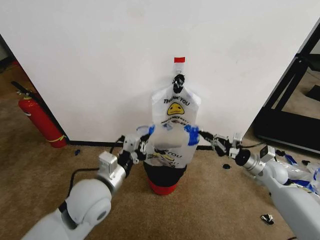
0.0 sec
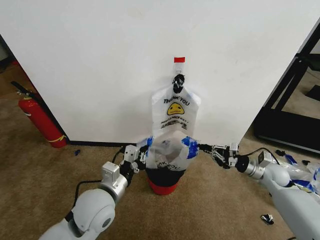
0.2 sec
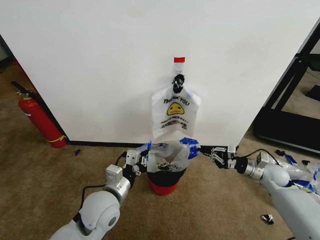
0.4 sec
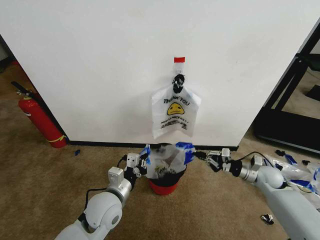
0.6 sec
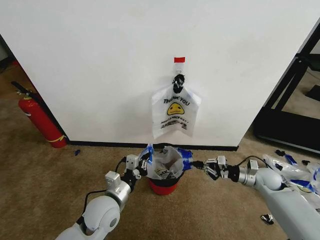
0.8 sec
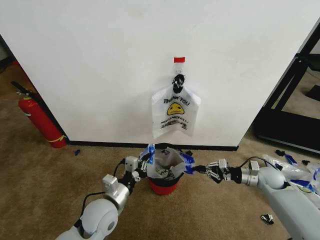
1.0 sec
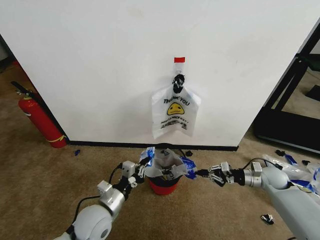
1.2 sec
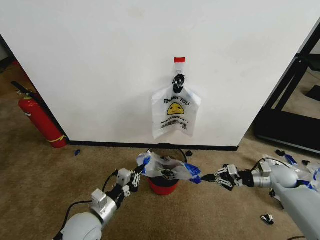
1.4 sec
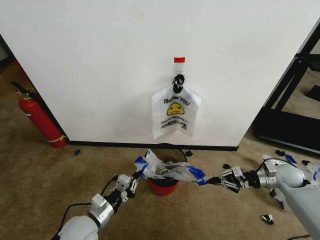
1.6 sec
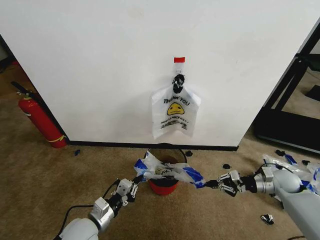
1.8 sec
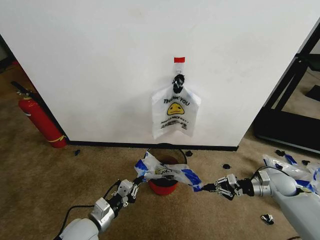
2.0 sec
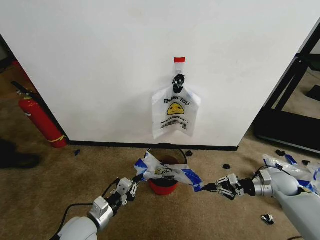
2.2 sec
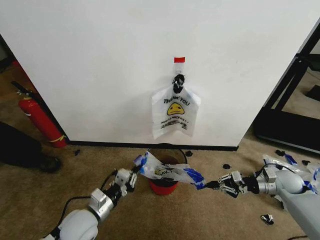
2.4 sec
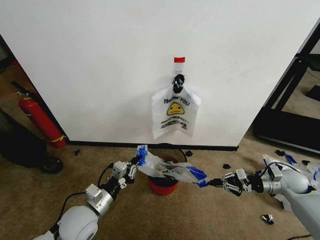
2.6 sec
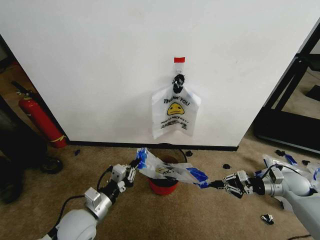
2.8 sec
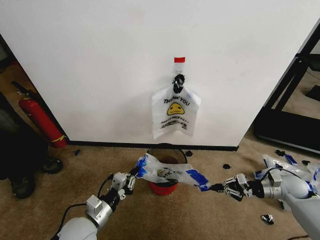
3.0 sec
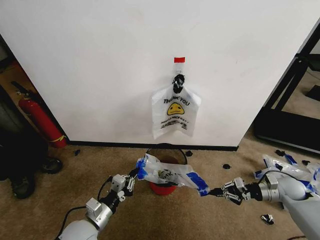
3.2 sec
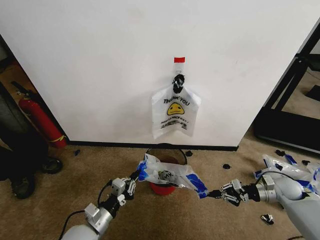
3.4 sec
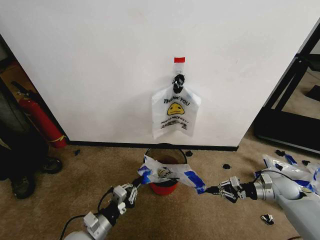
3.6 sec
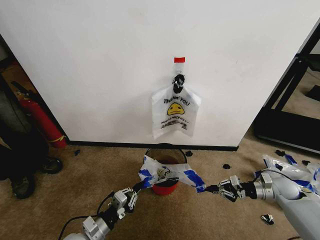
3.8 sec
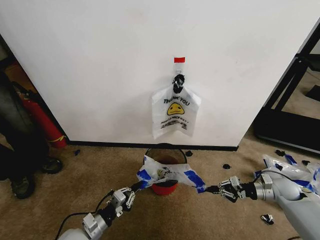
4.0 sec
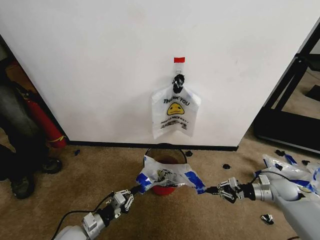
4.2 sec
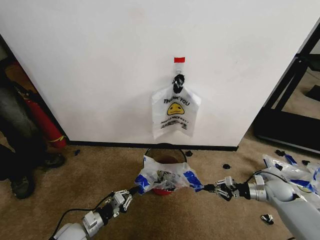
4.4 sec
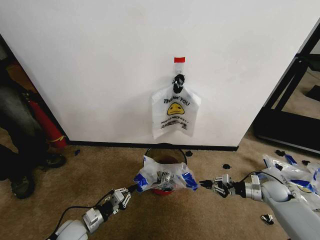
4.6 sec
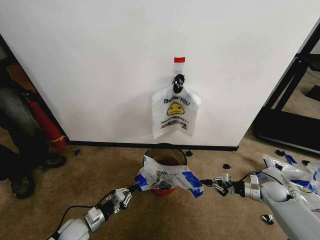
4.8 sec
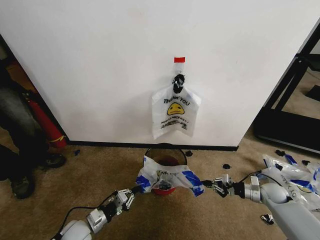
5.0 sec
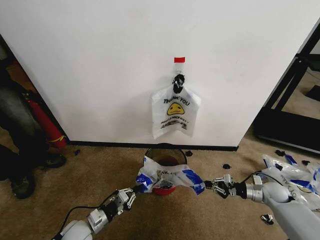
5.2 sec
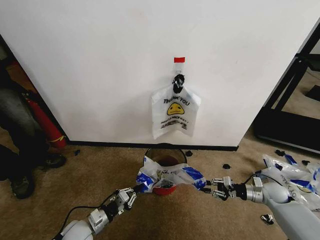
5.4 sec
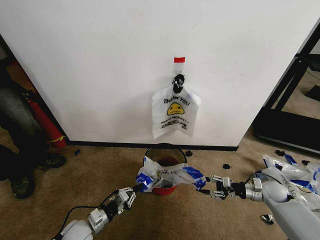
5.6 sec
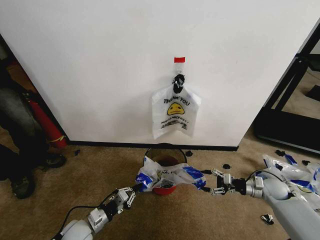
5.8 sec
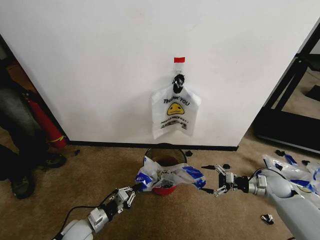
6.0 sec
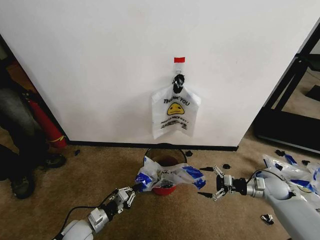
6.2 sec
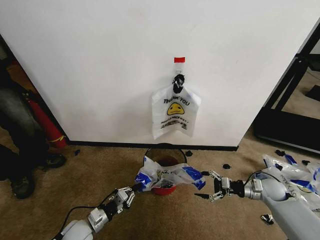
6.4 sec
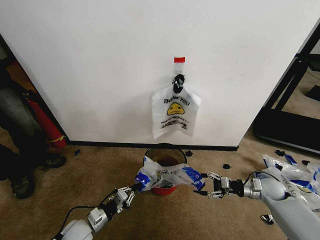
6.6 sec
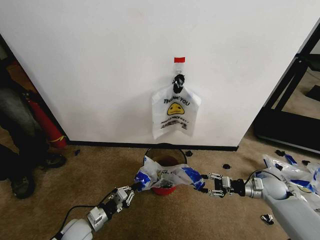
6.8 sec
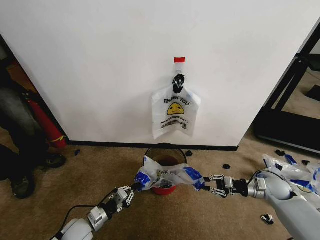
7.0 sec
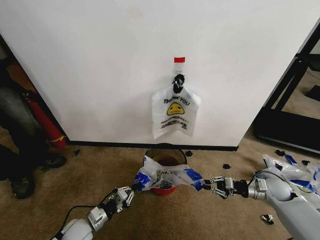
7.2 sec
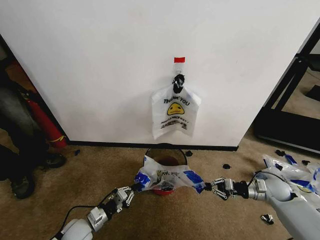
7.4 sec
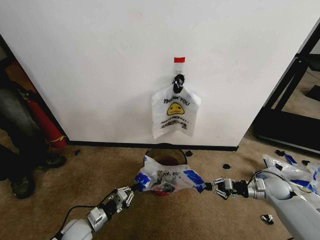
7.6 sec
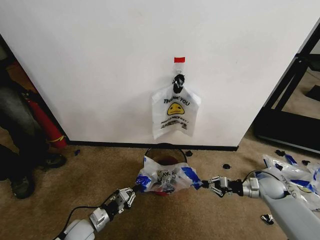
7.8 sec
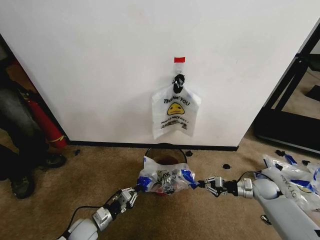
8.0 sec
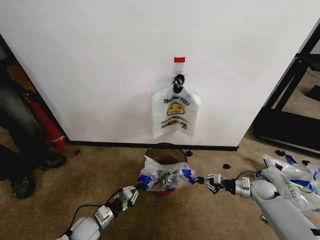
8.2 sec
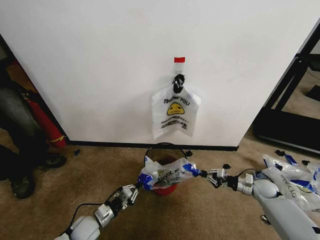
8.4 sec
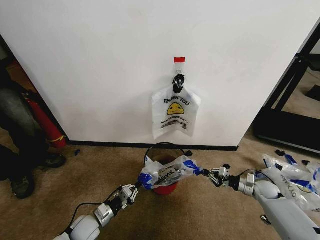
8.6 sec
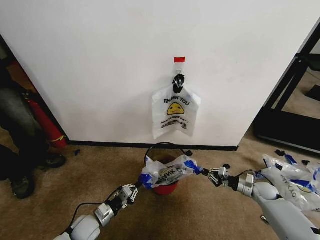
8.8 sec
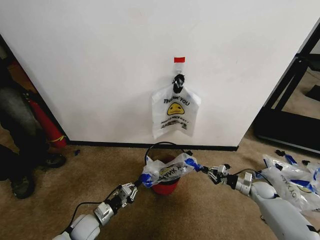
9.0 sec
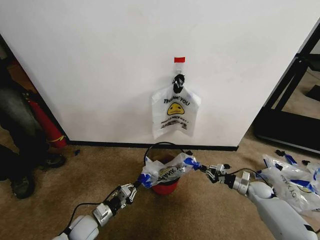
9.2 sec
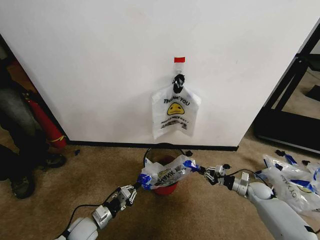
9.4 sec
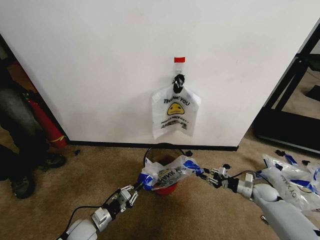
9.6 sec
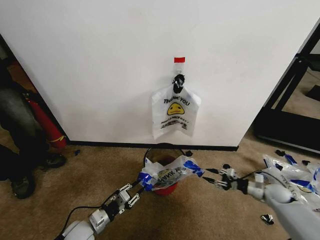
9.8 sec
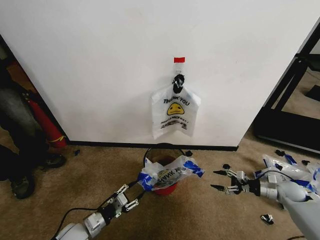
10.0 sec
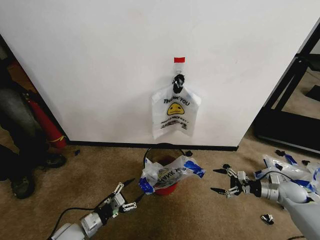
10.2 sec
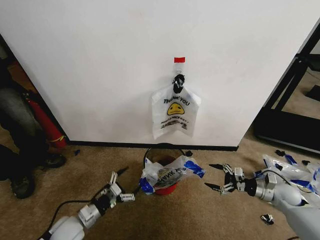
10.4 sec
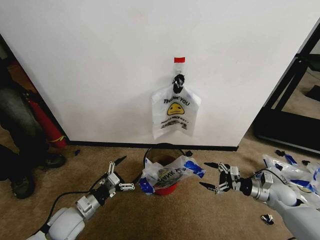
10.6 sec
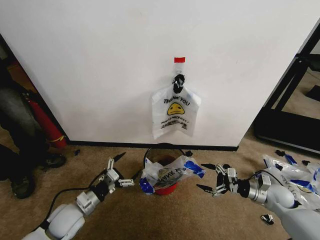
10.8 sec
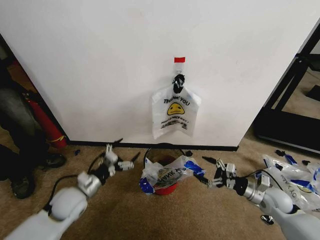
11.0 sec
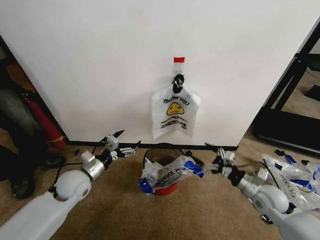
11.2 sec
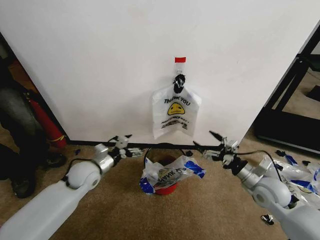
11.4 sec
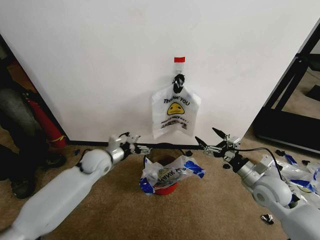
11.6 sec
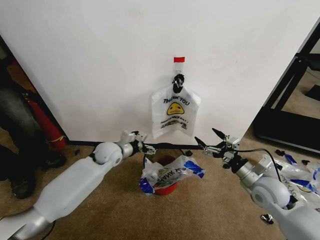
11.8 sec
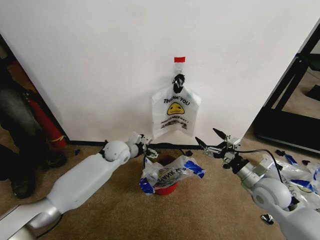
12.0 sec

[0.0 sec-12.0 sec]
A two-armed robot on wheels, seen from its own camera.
Task of the whole recording: Pick up the garbage bag from the wall and place it over the trash bin.
0.0 sec to 1.6 sec: The right gripper shifts some 5 cm to the right; the left gripper heads downward and to the left, covering approximately 15 cm.
1.6 sec to 3.0 sec: The grippers move only a little.
3.0 sec to 4.4 sec: The right gripper shifts by some 5 cm; the left gripper shifts about 10 cm downward and to the left.
4.4 sec to 6.0 sec: The right gripper opens its fingers.
6.0 sec to 7.6 sec: The right gripper closes up.
7.6 sec to 9.0 sec: The right gripper heads downward, covering approximately 10 cm.
9.0 sec to 10.4 sec: Both grippers move upward, approximately 5 cm. The right gripper moves about 5 cm to the right and comes back, and opens up. The left gripper opens up.
10.4 sec to 12.0 sec: The left gripper travels forward, to the right and upward by about 30 cm; the right gripper moves to the left and upward, about 15 cm.

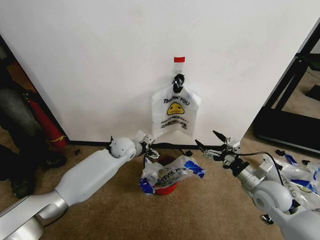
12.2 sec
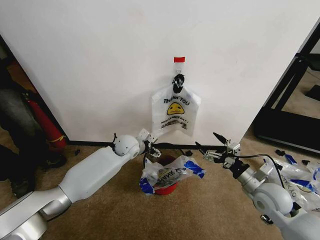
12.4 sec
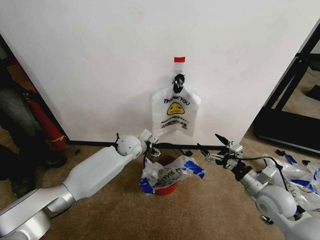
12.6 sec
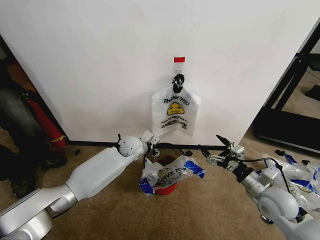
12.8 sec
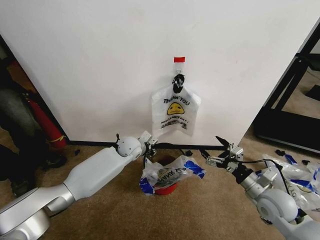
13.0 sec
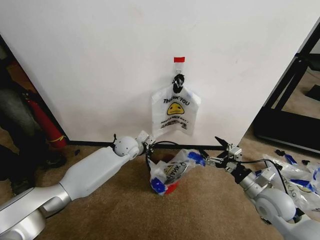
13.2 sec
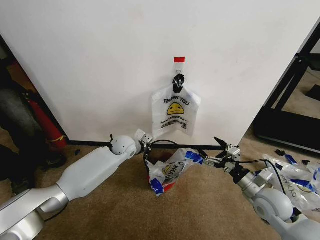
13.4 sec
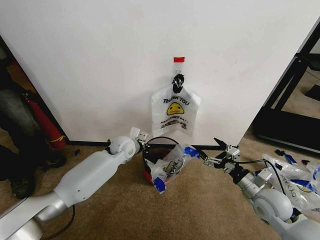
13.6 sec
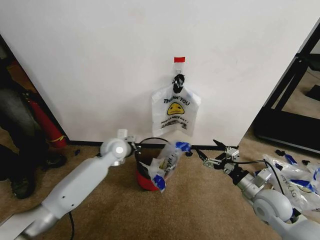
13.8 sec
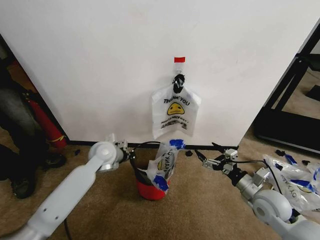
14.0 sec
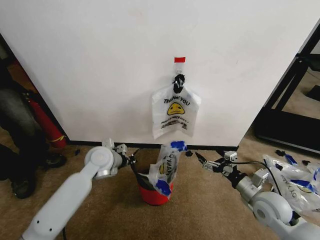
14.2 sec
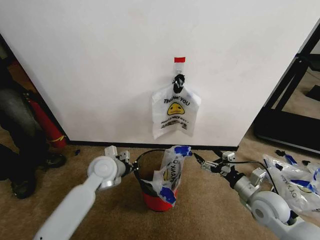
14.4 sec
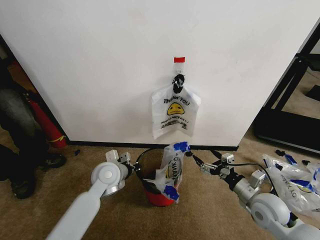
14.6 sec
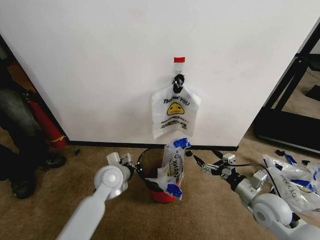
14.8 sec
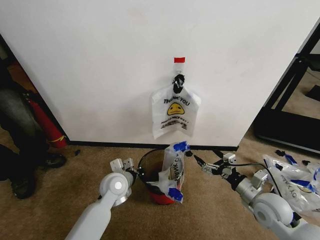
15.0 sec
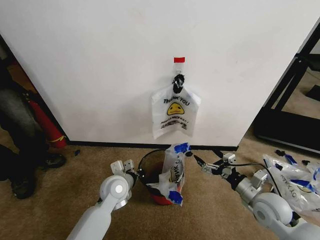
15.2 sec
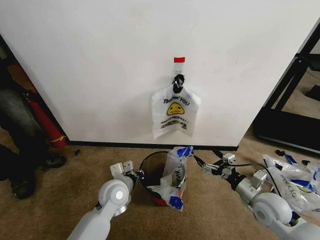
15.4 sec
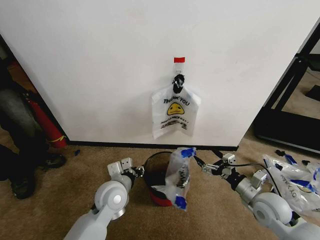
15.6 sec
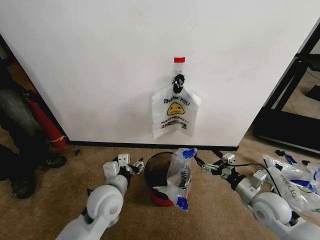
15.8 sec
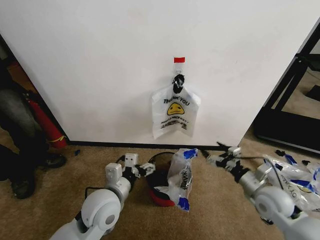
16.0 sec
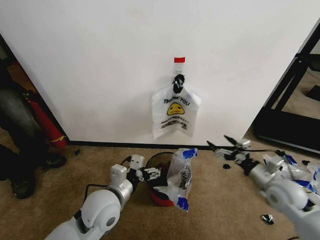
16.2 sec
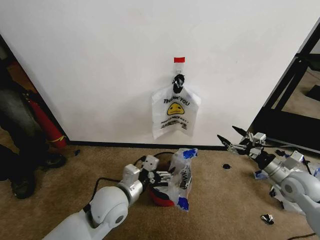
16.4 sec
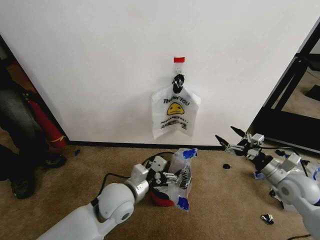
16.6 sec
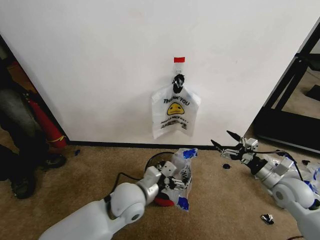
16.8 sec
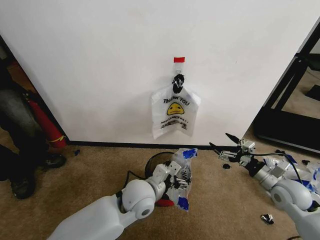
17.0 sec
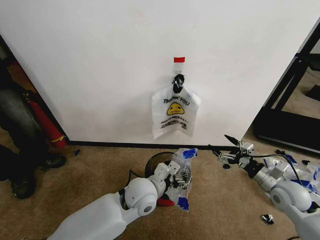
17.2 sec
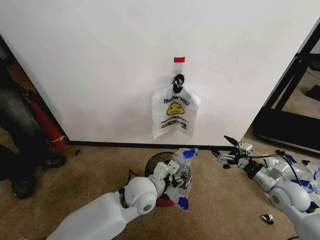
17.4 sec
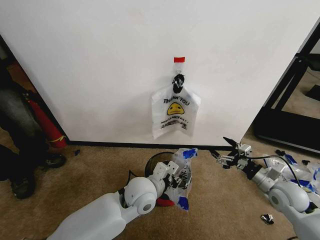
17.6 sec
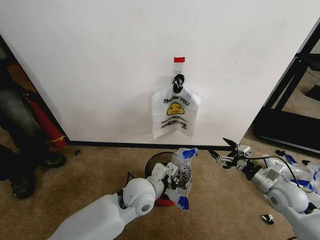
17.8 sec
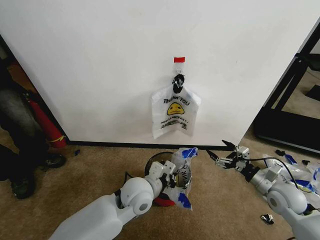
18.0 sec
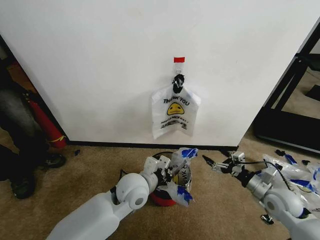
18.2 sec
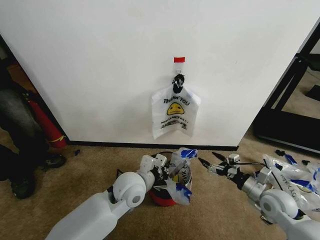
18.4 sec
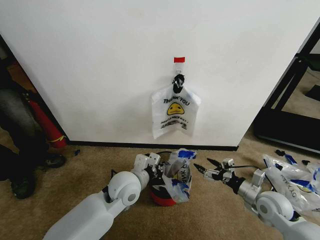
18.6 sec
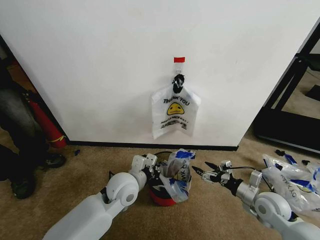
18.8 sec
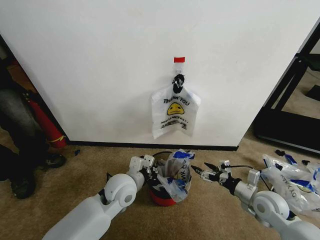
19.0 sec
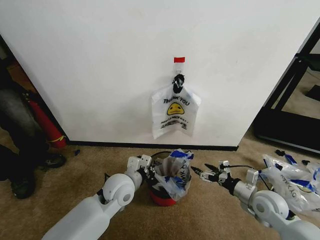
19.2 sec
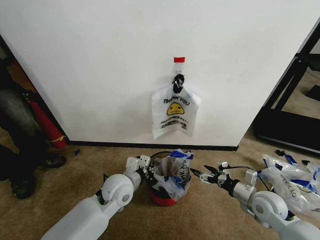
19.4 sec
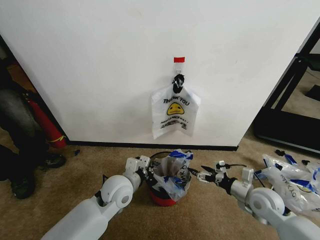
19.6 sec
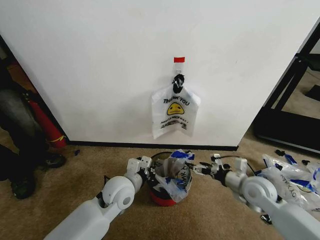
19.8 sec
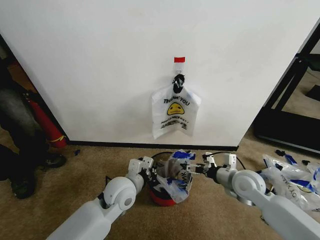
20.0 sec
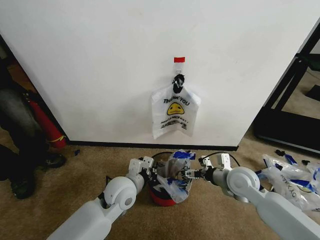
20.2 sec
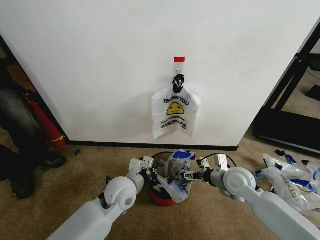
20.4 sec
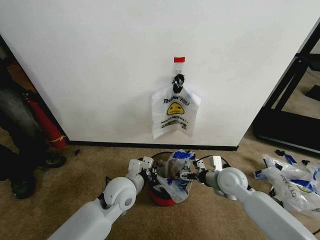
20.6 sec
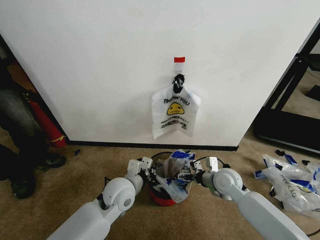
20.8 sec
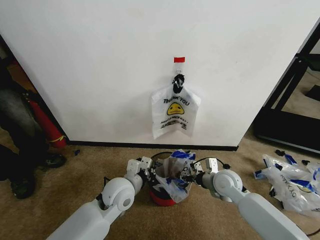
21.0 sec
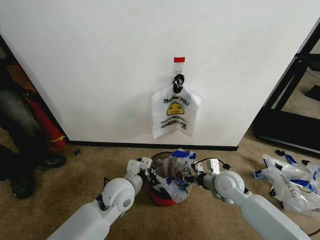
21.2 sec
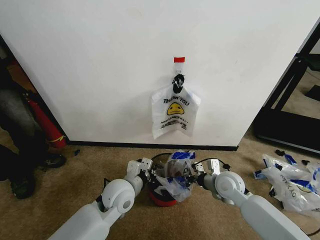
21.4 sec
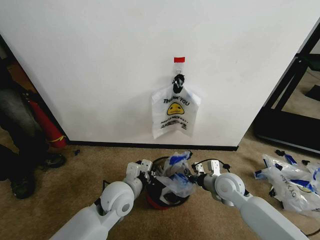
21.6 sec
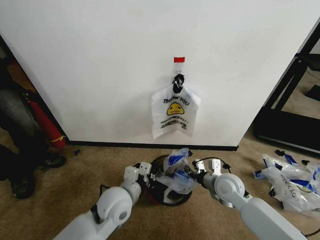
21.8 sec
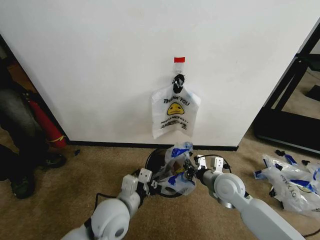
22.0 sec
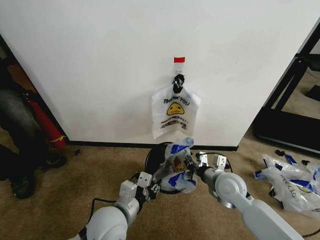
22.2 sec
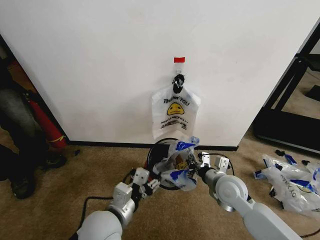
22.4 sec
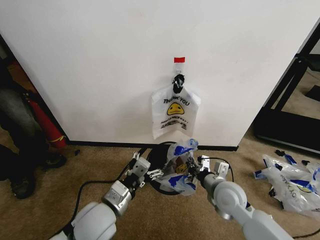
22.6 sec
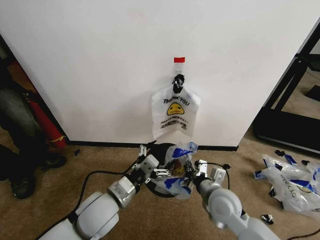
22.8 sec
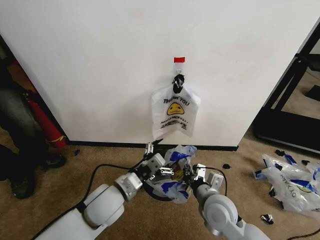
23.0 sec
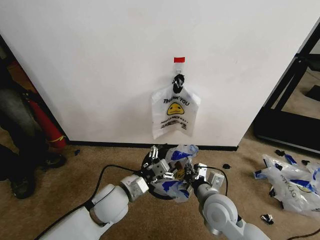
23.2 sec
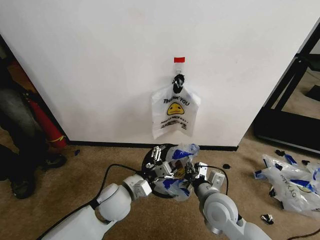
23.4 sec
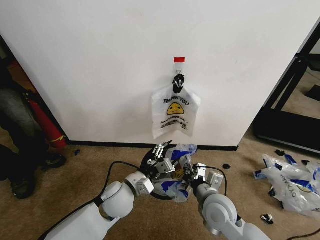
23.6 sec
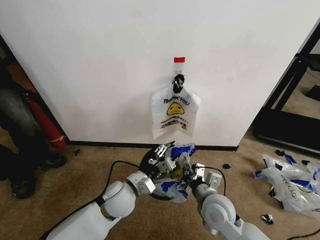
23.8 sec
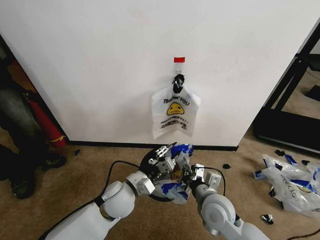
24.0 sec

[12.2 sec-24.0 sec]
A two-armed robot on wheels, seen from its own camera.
Task of the whole recording: Pick up the garbage bag from the wall and place it over the trash bin.
12.2 sec to 13.6 sec: The left gripper closes.
13.6 sec to 15.2 sec: The left gripper travels backward by roughly 15 cm.
15.2 sec to 16.6 sec: The left gripper heads backward and upward, covering some 10 cm, and opens, while the right gripper moves to the right, about 10 cm.
16.6 sec to 18.2 sec: The right gripper changes place by roughly 5 cm, while the left gripper closes up.
18.2 sec to 19.6 sec: The two grippers go some 5 cm to the left.
19.6 sec to 21.0 sec: The right gripper shifts roughly 15 cm to the left and forward.
21.0 sec to 22.6 sec: The left gripper shifts roughly 10 cm backward, and opens its fingers. The right gripper travels backward by some 5 cm, and closes up.
22.6 sec to 24.0 sec: The right gripper ends up roughly 5 cm from where it was. Meanwhile the left gripper heads forward, covering about 10 cm, and closes its fingers.
